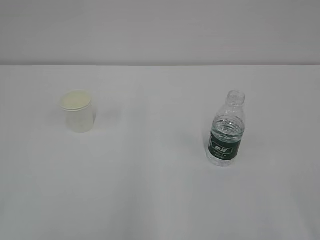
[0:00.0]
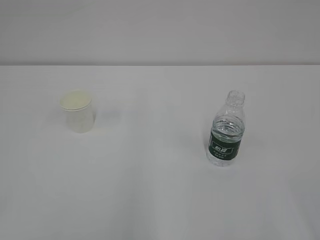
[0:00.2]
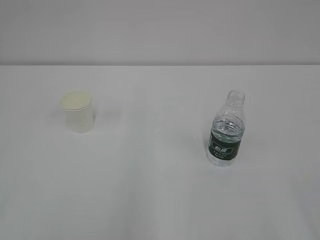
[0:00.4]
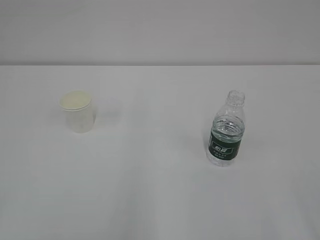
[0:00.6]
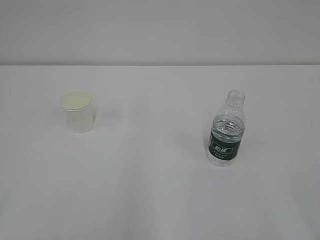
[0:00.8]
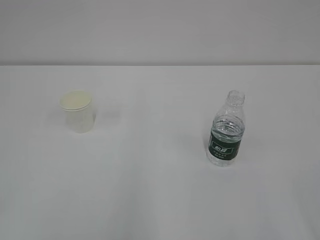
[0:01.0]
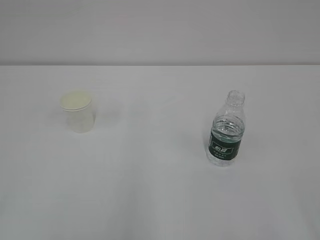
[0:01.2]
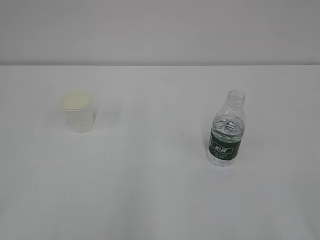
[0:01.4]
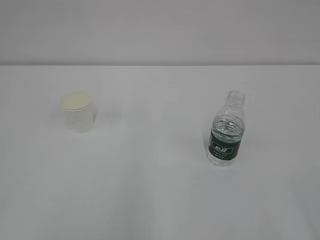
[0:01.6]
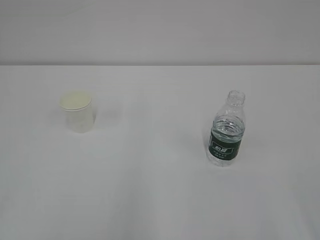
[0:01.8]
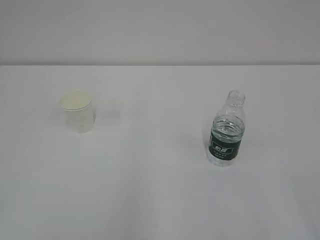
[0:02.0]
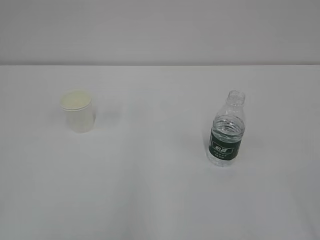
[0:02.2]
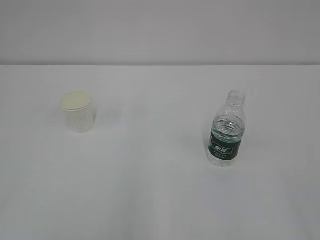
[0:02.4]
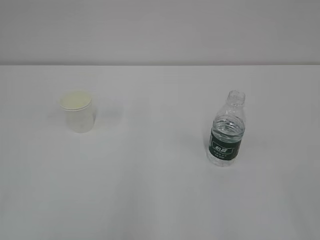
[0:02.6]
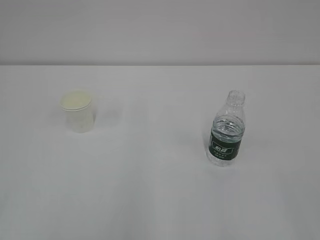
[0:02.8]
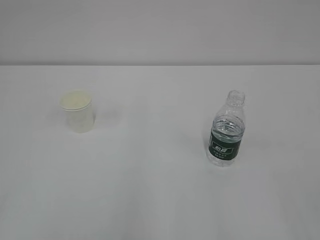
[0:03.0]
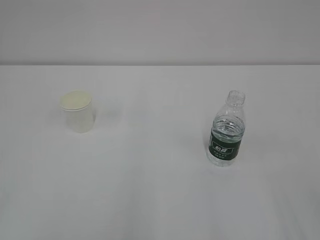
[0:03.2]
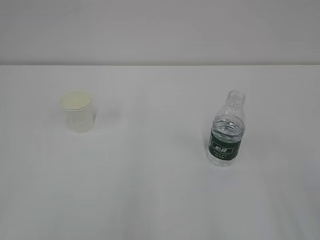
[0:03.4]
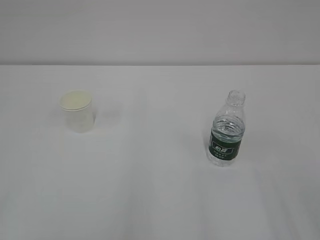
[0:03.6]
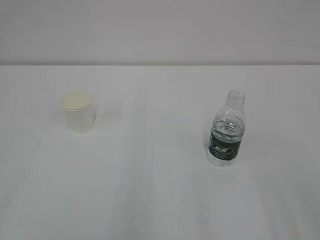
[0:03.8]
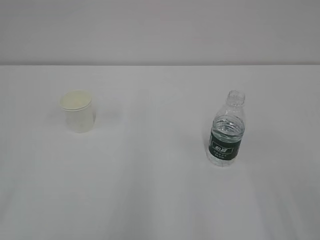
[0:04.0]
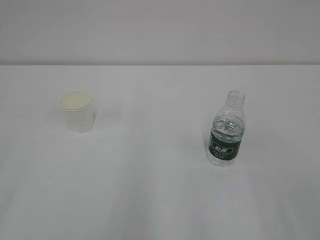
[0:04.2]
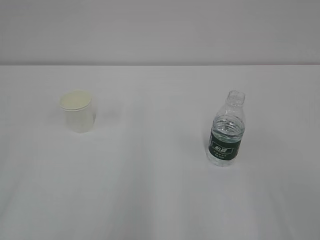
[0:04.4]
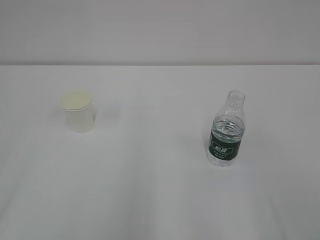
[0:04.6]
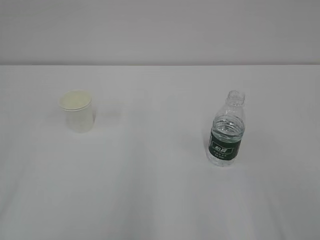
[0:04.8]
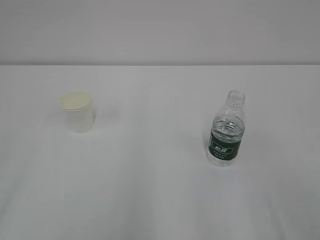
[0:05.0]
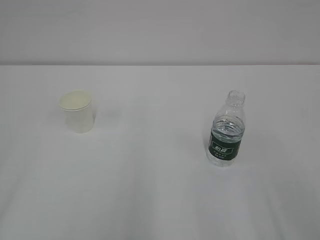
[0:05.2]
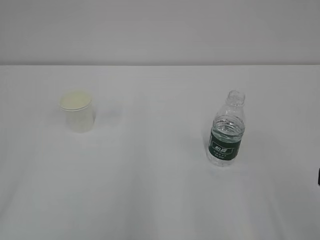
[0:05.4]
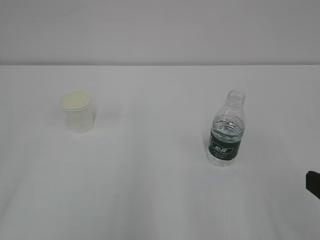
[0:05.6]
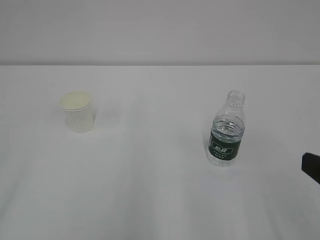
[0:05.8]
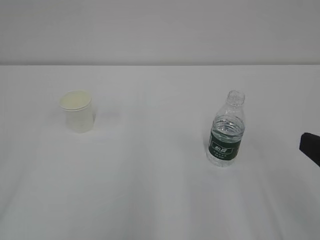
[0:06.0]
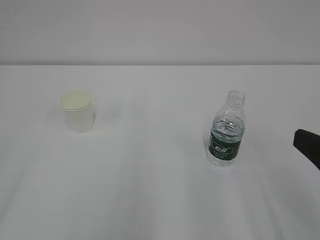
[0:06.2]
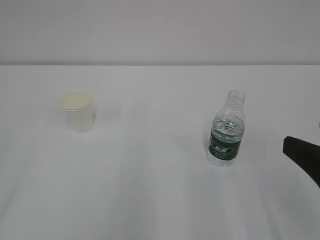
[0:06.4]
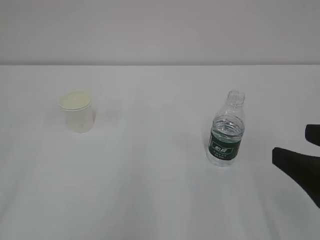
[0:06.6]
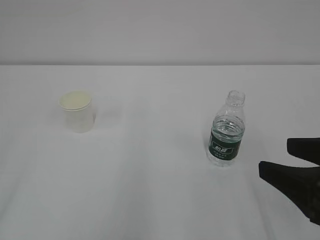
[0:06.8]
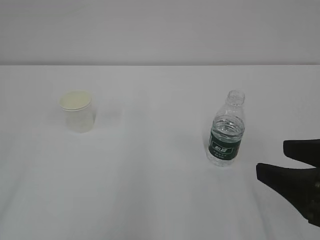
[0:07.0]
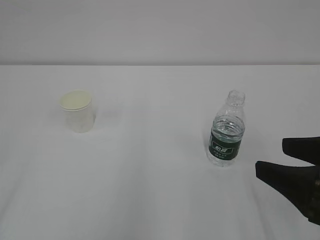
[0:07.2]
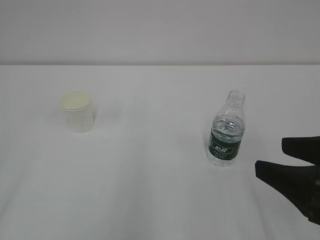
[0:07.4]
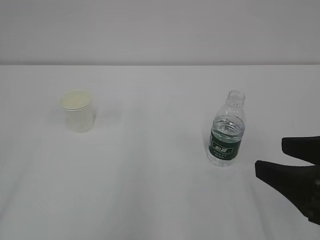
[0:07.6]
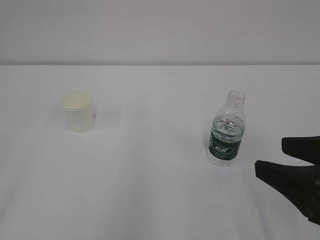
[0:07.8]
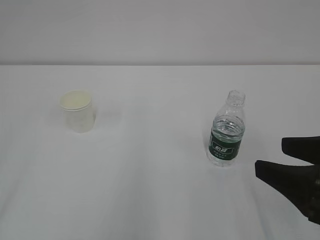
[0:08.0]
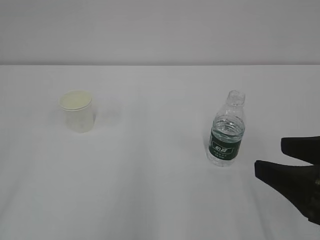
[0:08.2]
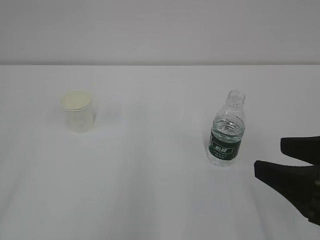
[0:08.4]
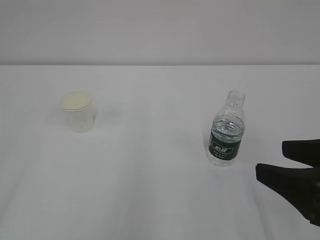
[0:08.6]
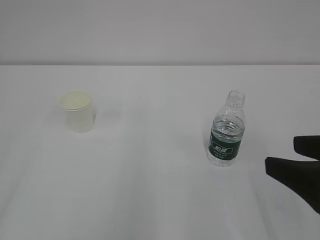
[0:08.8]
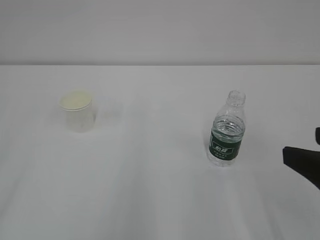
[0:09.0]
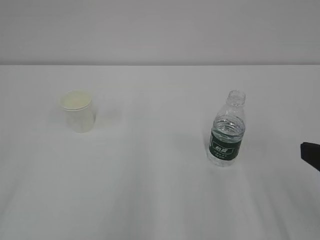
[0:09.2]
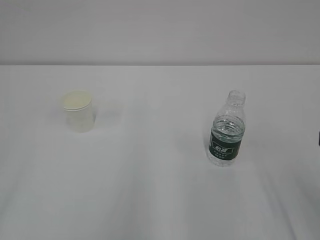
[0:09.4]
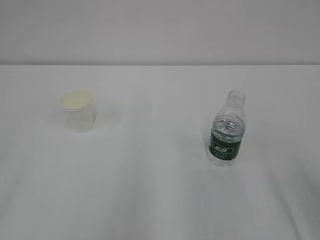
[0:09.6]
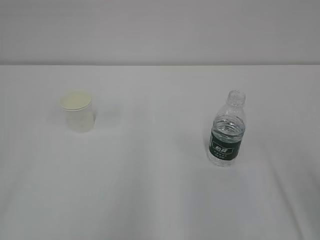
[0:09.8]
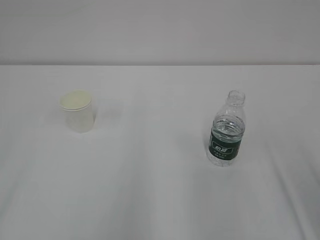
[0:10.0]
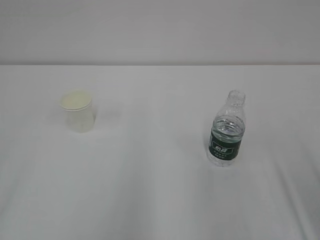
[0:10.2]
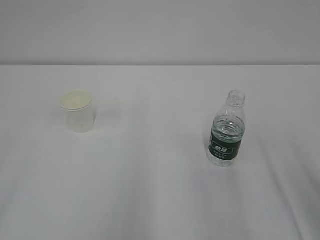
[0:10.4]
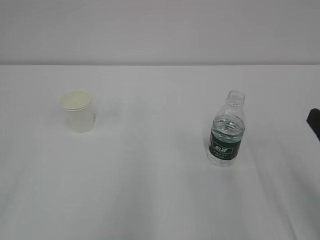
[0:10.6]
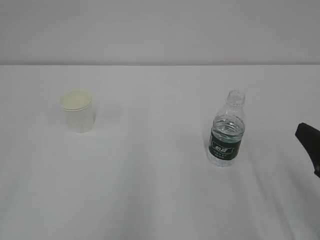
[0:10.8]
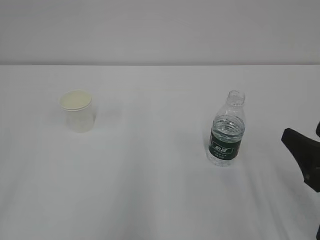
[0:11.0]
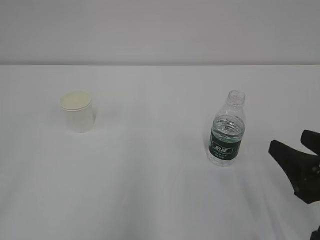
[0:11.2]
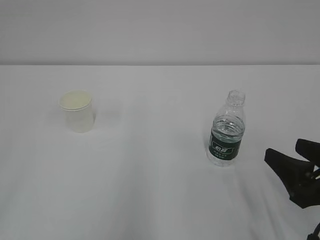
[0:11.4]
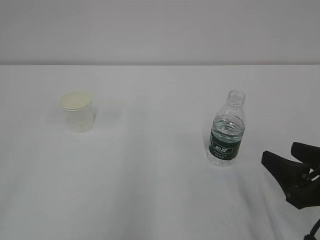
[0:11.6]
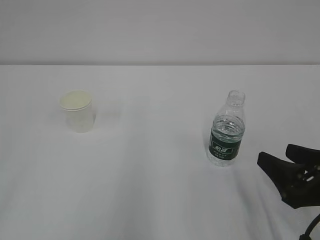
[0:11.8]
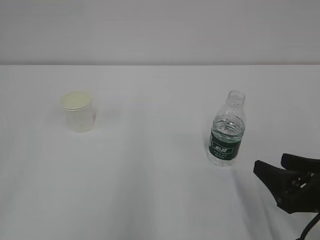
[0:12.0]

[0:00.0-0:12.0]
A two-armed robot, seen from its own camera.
0:04.4 to 0:06.0: The right gripper is displaced downward and forward by about 10 cm.
0:06.0 to 0:07.6: The right gripper changes place by approximately 5 cm.
0:07.6 to 0:09.0: The grippers move only a little.
0:10.4 to 0:12.0: The right gripper travels downward by some 10 cm.

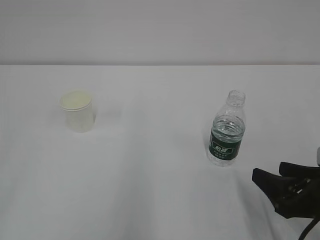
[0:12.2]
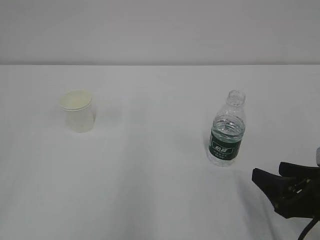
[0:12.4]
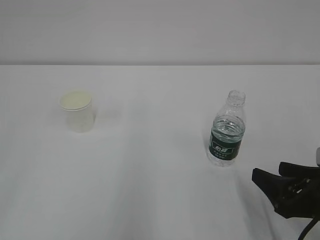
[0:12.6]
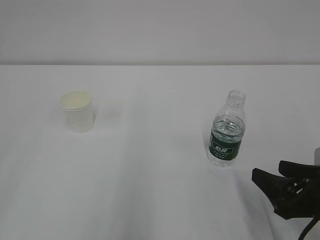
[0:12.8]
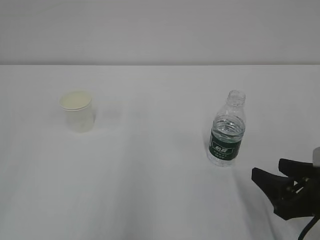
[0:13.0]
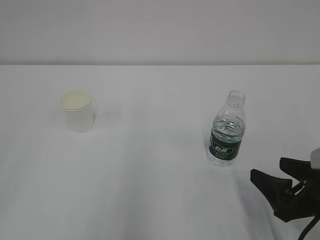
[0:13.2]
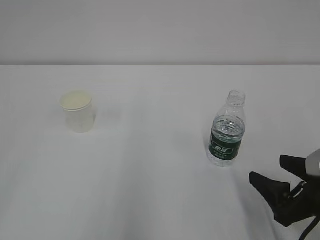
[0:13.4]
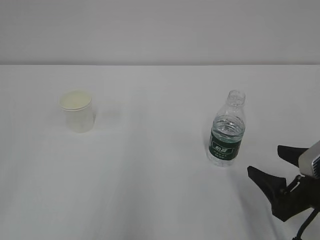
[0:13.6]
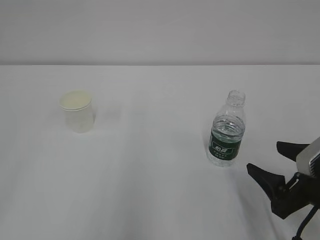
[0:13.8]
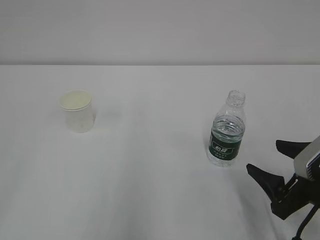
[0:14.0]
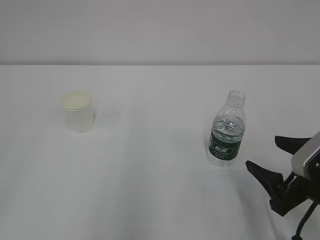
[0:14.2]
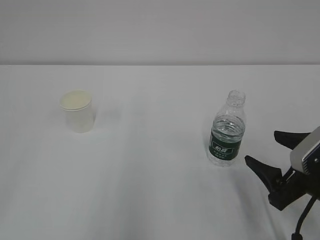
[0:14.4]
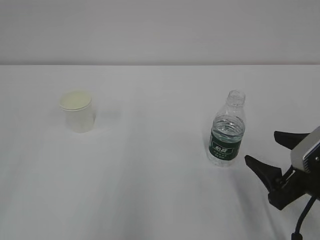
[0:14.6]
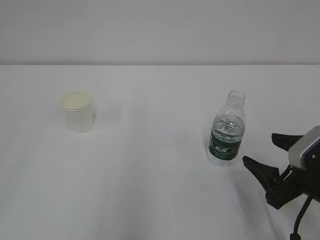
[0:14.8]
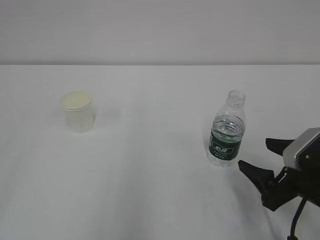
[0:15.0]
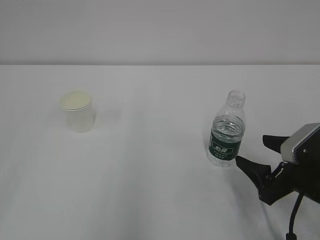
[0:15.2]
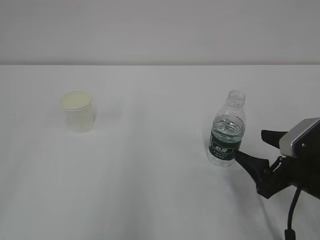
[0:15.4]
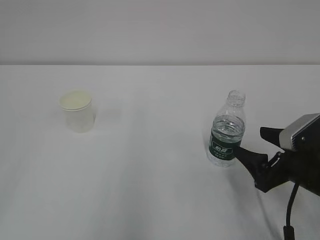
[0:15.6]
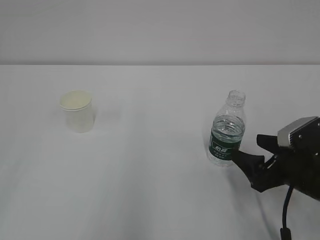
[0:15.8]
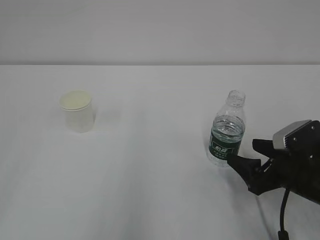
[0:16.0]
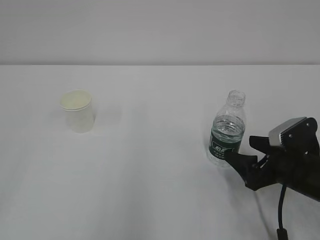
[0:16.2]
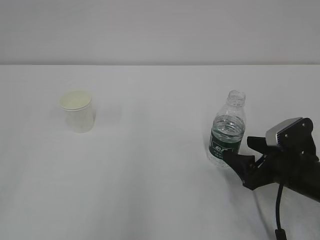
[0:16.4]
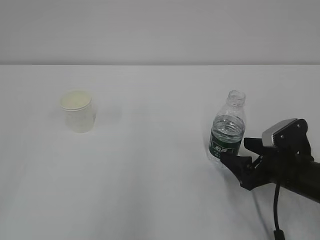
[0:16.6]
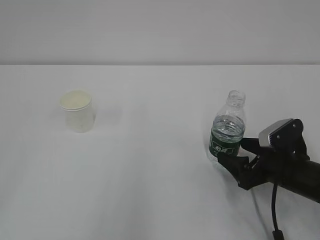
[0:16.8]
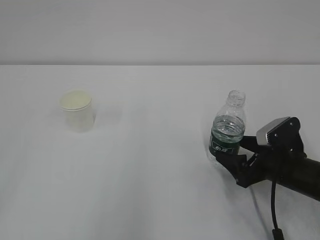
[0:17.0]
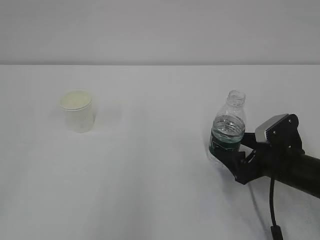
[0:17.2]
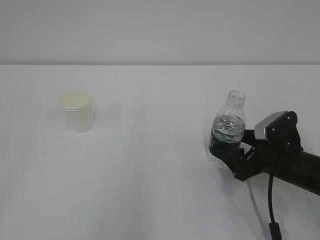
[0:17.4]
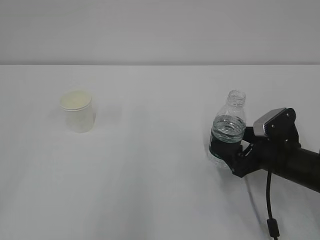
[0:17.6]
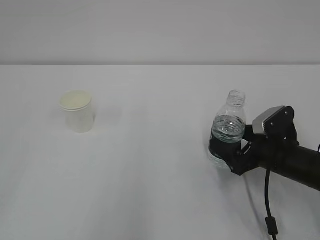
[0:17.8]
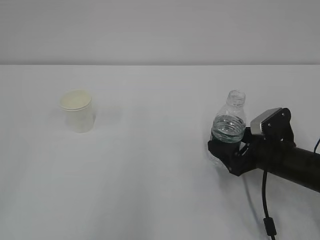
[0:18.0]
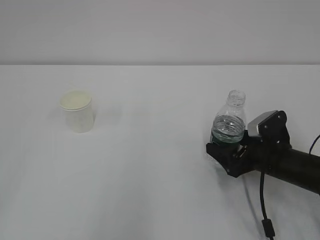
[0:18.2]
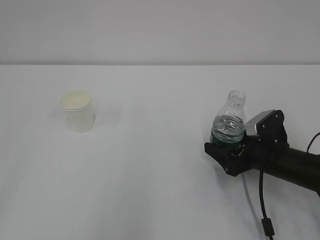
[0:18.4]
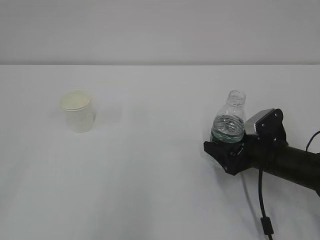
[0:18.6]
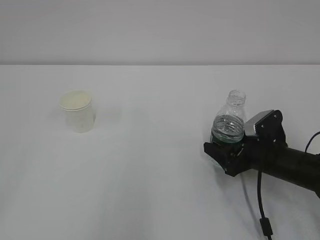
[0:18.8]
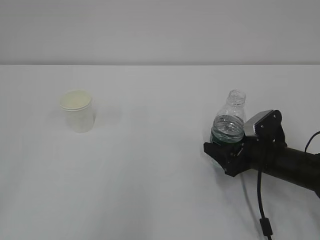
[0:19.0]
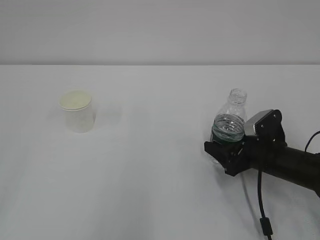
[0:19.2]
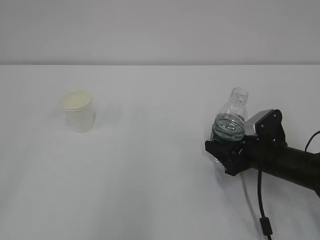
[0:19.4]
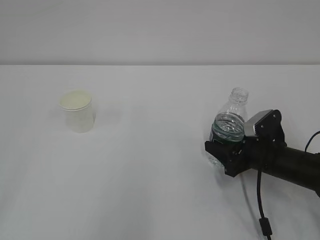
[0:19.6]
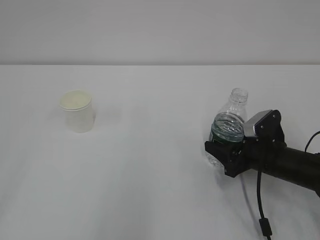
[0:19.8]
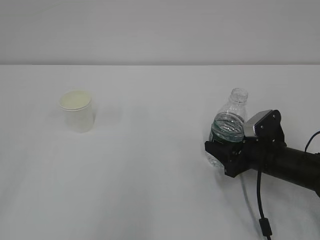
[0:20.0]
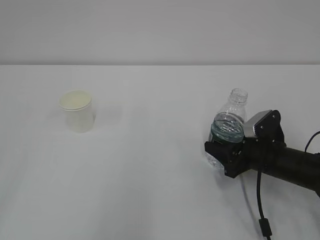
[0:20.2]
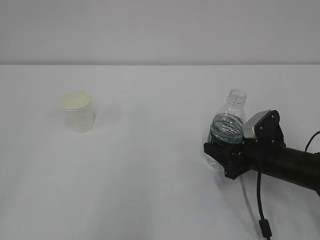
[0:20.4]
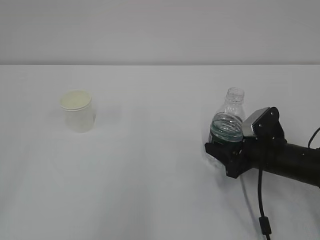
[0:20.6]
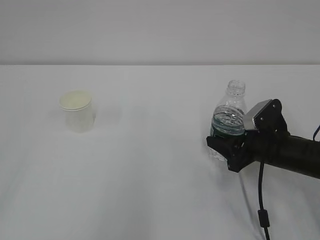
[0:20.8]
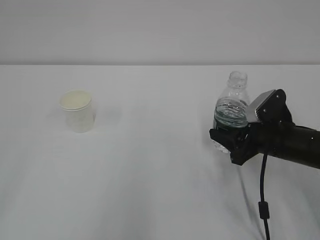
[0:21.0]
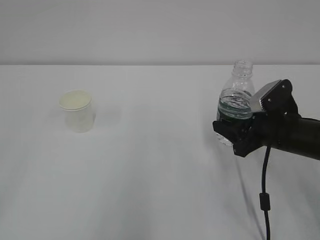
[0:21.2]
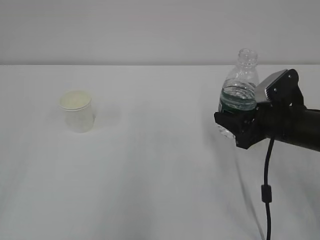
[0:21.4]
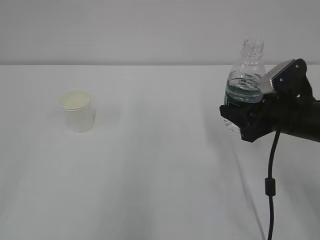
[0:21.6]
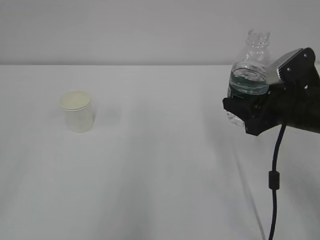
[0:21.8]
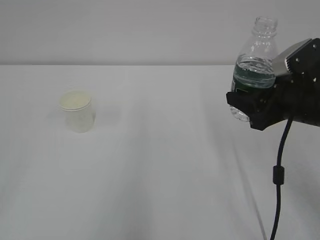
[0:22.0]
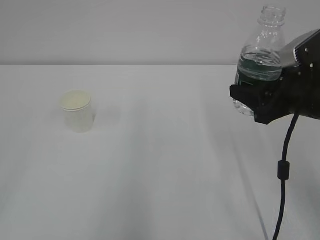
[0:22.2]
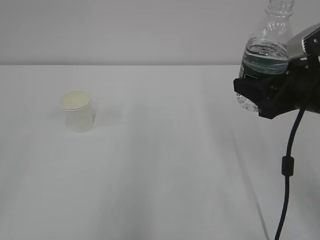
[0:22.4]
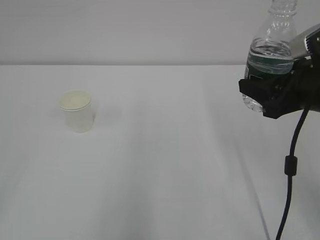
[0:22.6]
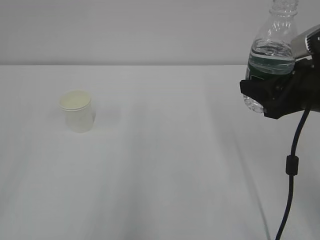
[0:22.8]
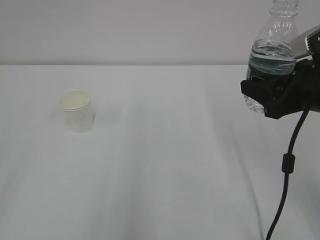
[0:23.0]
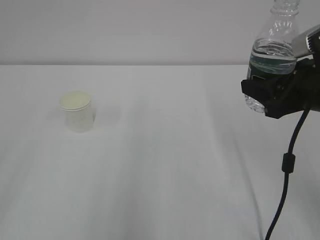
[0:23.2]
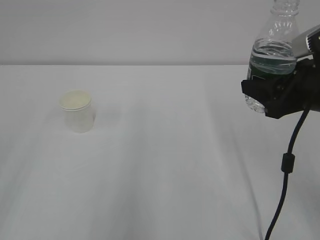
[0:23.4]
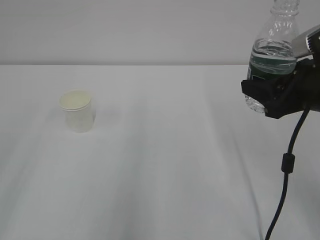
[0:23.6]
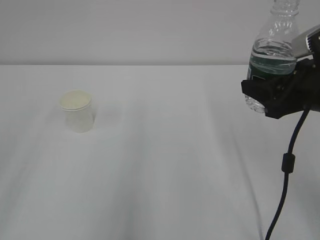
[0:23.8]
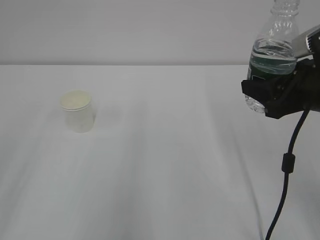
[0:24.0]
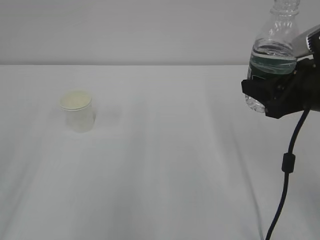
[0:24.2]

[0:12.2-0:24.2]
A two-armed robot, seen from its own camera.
0:13.8 to 0:15.2: The grippers make only small movements.
0:15.2 to 0:16.6: The right gripper changes place by some 5 cm.
0:16.6 to 0:18.2: The grippers make only small movements.
0:18.2 to 0:19.8: The right gripper closes up.
0:19.8 to 0:21.2: The right gripper moves upward, some 5 cm.
0:21.2 to 0:22.6: The right gripper heads upward, covering approximately 10 cm.
